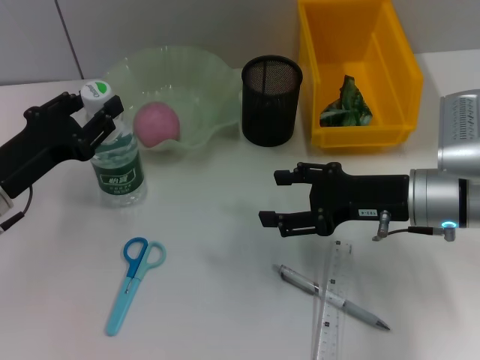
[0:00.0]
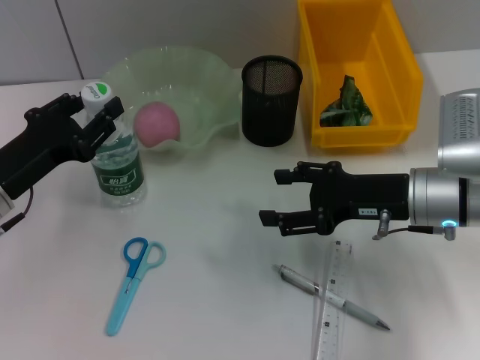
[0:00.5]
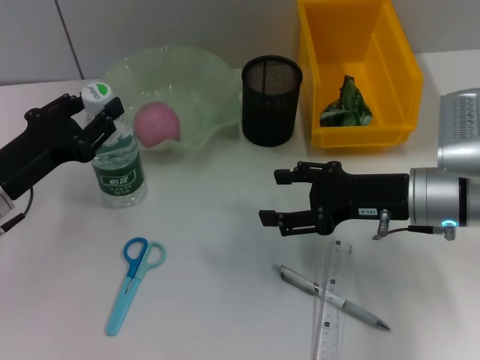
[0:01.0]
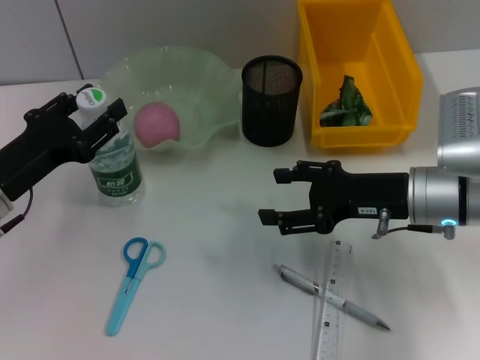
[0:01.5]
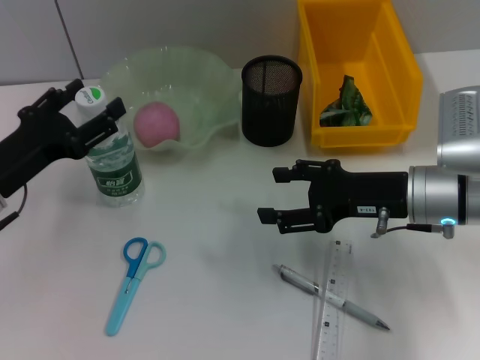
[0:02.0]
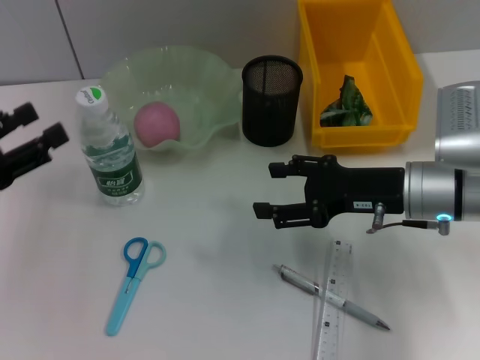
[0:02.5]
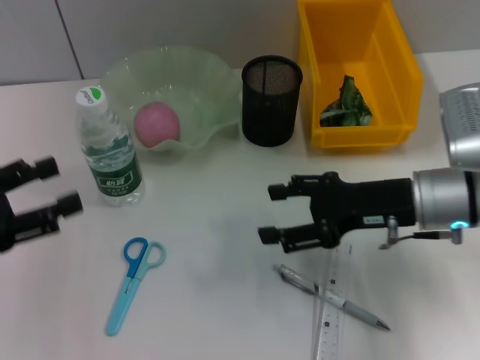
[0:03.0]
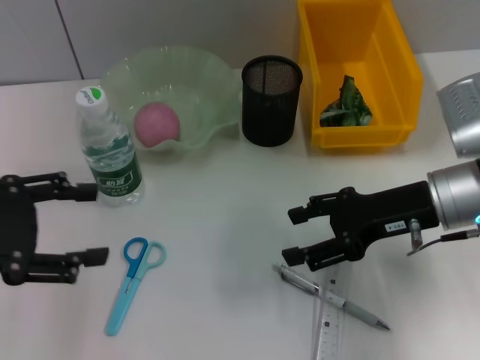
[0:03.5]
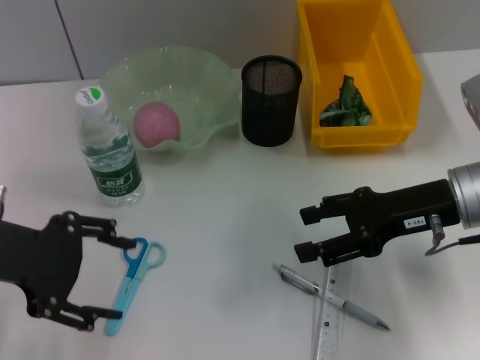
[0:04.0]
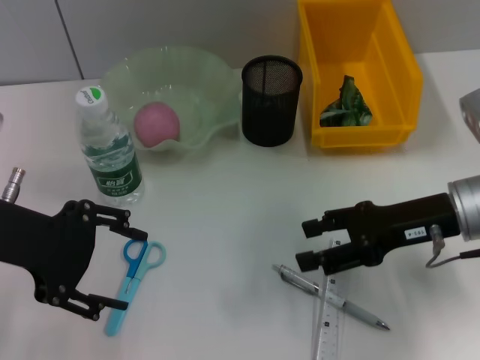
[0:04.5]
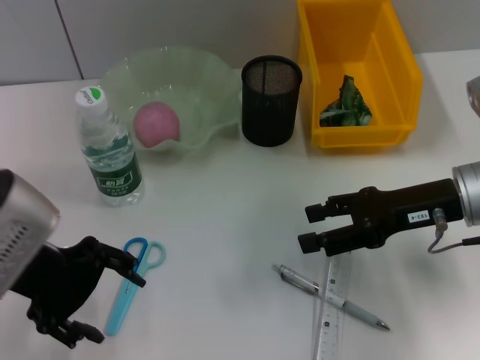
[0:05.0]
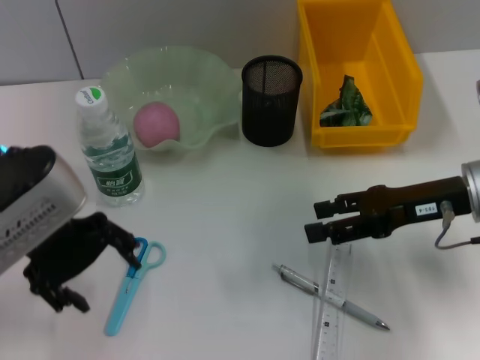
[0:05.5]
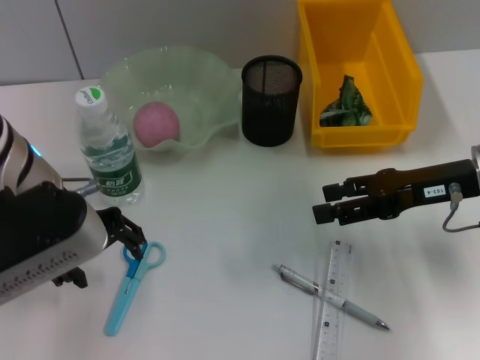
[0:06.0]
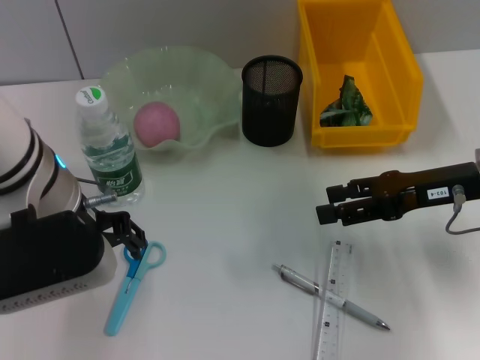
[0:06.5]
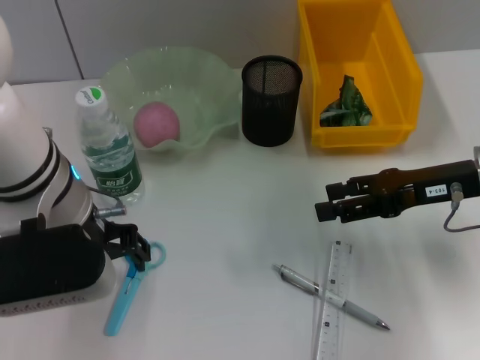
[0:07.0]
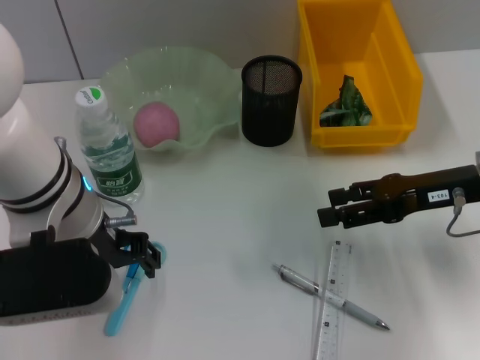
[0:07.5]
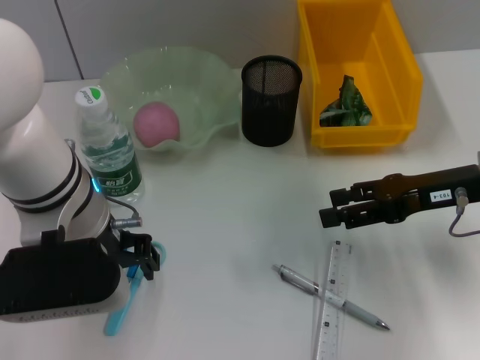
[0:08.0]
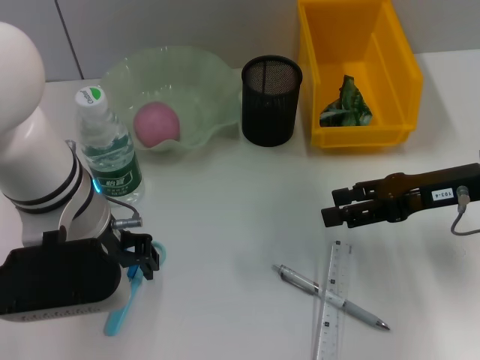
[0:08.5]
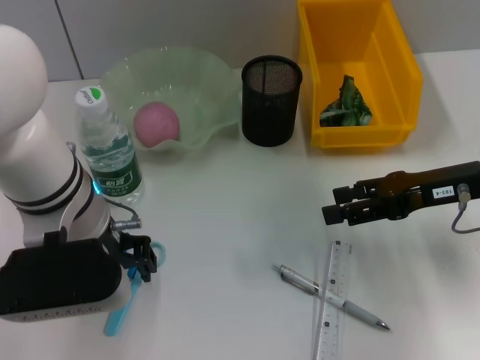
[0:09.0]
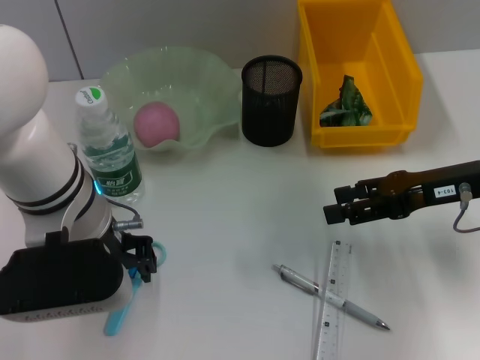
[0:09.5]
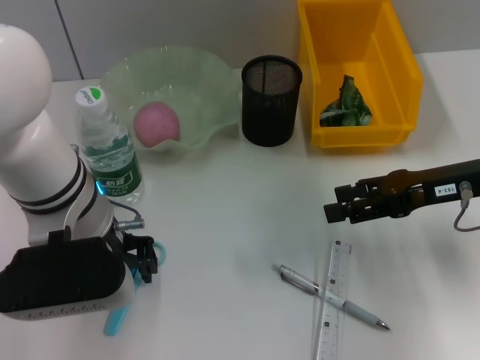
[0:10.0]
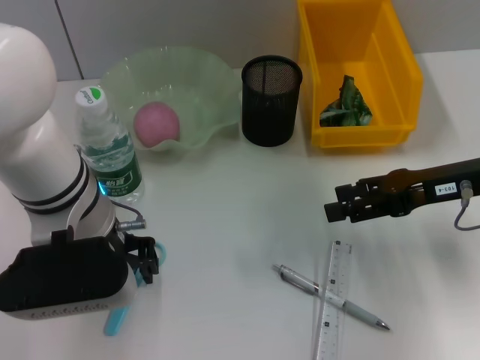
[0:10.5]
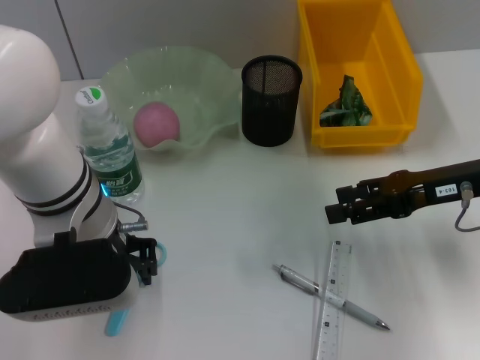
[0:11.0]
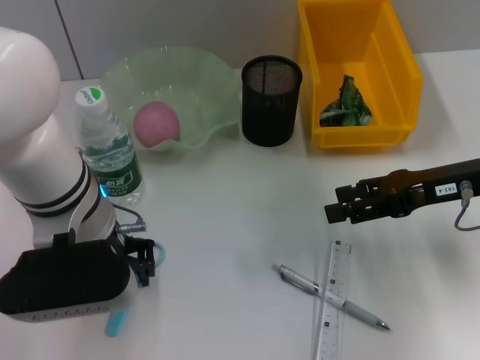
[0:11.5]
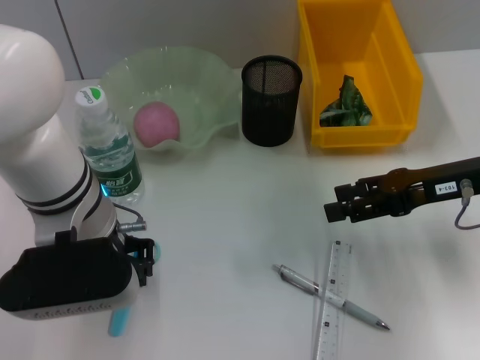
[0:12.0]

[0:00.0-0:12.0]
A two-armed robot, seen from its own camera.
0:00.0 to 0:02.0: Both grippers stay about where they are.
0:02.0 to 0:04.0: The left gripper shifts some 10 cm upward.
0:04.0 to 0:06.0: The left gripper travels to the right by some 10 cm.
0:06.0 to 0:08.0: The left gripper changes place by approximately 5 cm.
0:08.0 to 0:10.0: The grippers make only small movements.
0:10.0 to 0:12.0: Neither gripper changes place.

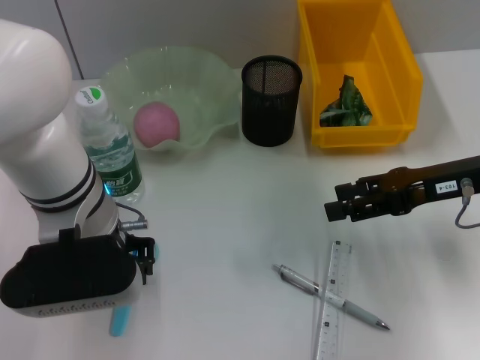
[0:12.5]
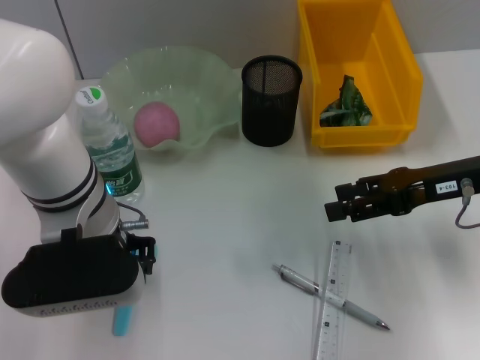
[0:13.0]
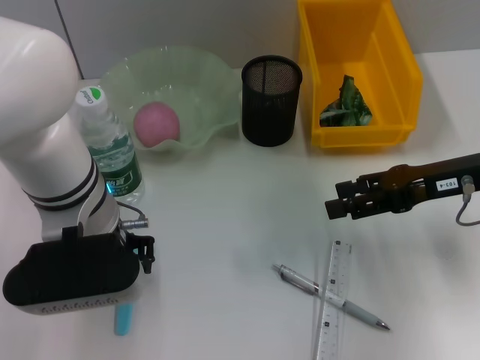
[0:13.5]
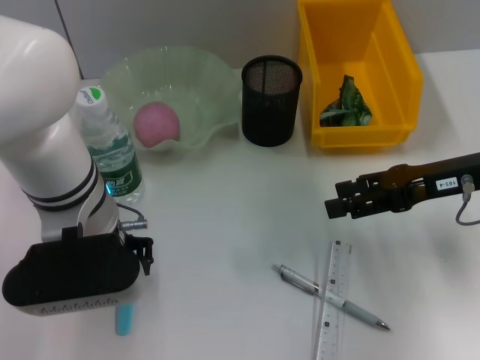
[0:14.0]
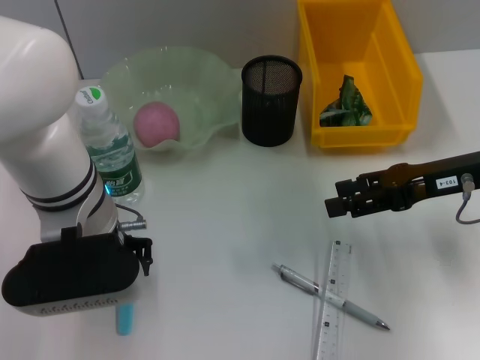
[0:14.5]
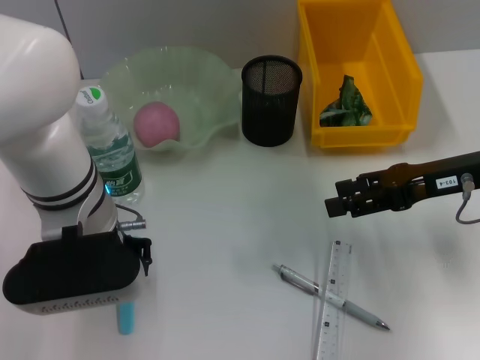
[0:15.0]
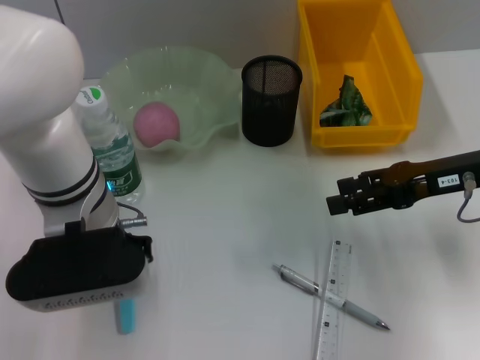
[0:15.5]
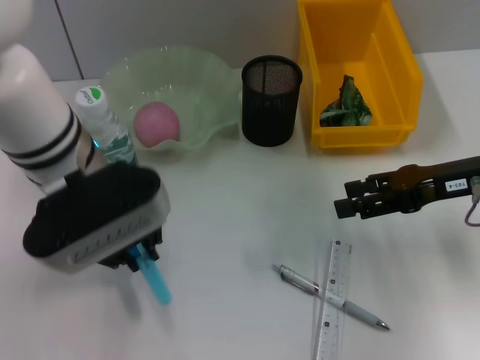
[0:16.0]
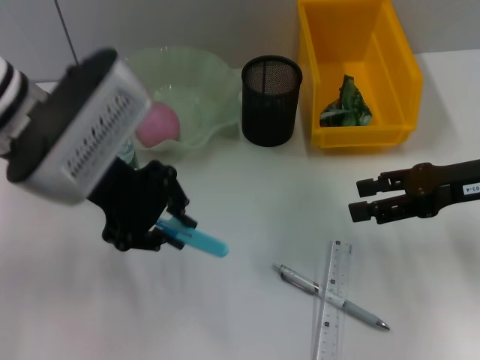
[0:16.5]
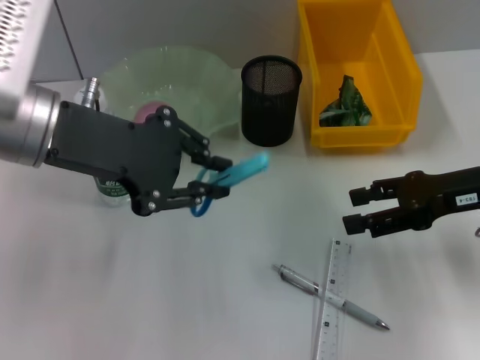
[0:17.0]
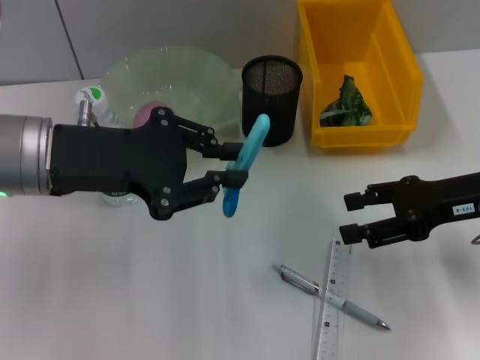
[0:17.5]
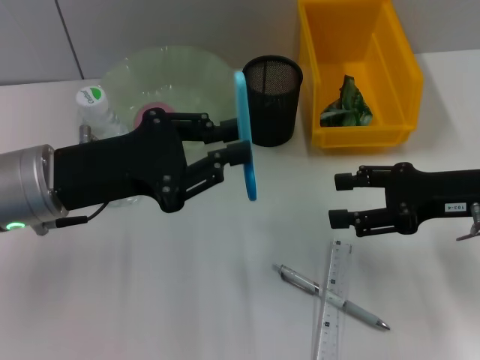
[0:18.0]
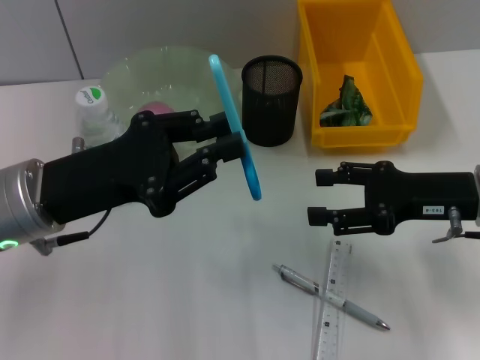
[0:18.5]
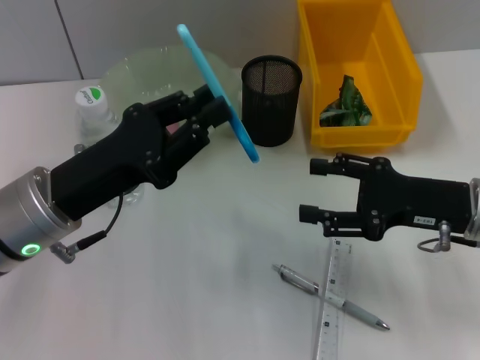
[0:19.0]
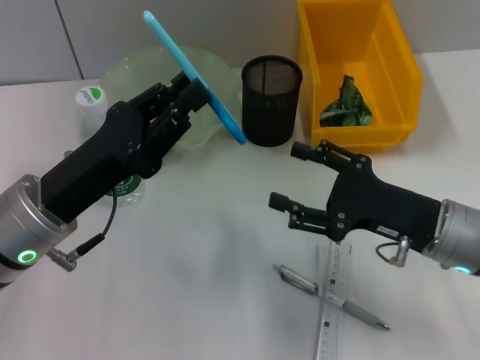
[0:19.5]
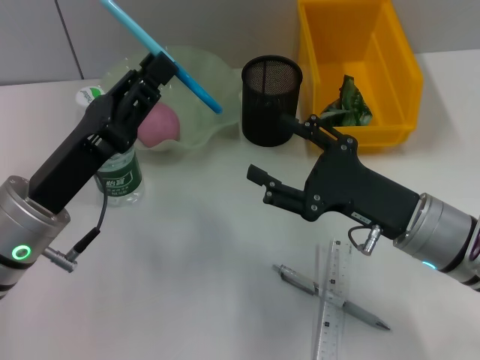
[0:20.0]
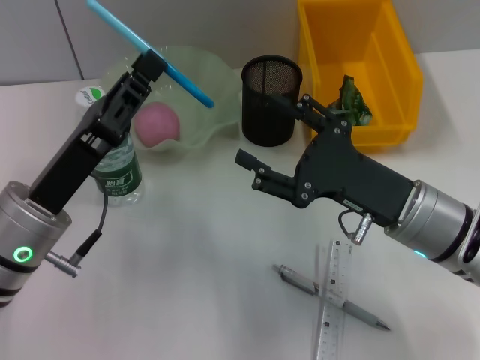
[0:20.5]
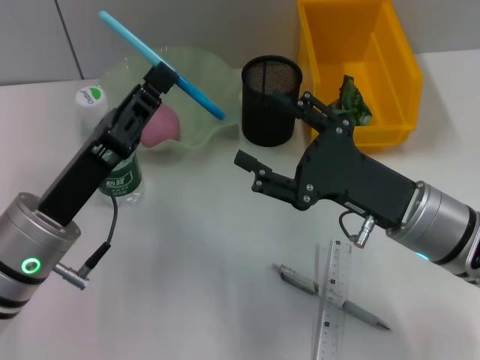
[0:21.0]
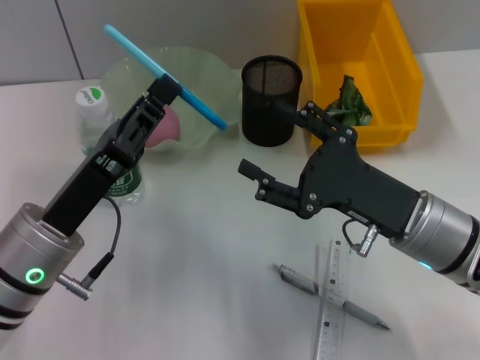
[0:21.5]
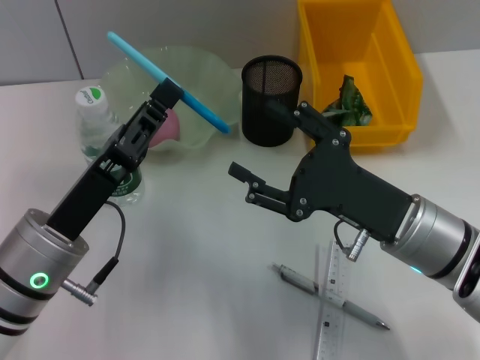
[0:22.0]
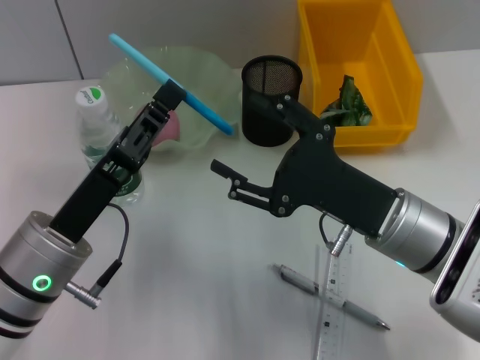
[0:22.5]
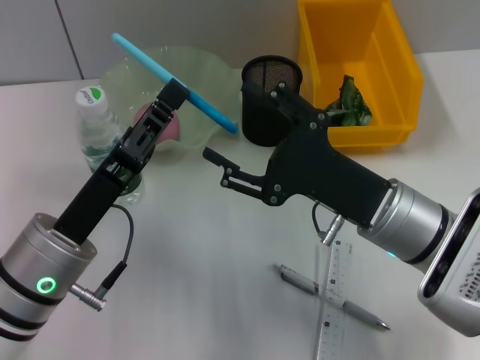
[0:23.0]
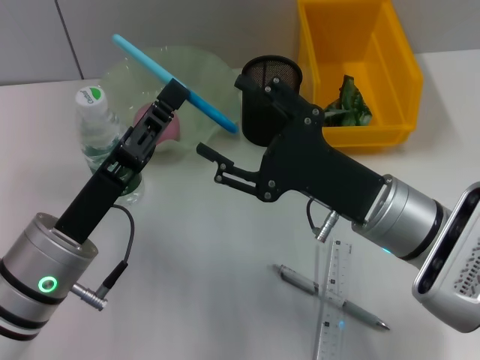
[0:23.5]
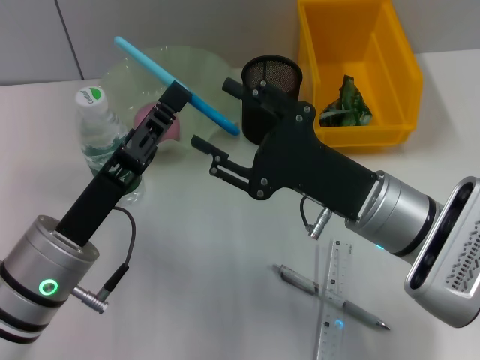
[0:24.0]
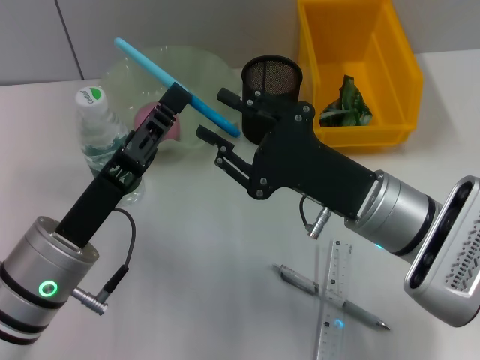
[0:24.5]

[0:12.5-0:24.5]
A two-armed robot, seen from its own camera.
Step, 0:12.5 to 0:15.0: Grab the blue scissors with the left hand.
0:12.5 to 0:14.5: Both grippers stay put.
0:14.5 to 0:16.5: The left gripper goes some 5 cm upward.
0:16.5 to 0:18.5: The left gripper shifts roughly 10 cm downward and backward.
0:18.5 to 0:20.5: The right gripper travels to the left by about 10 cm.
0:22.5 to 0:24.5: The right gripper closes.

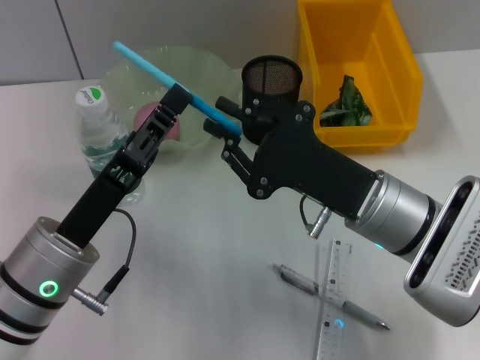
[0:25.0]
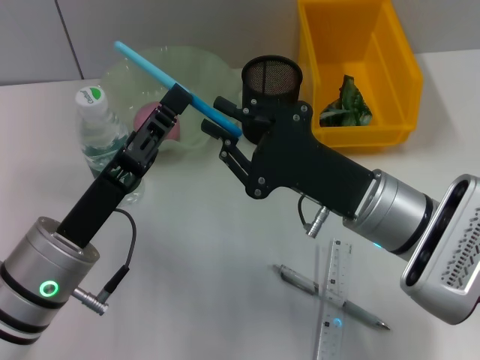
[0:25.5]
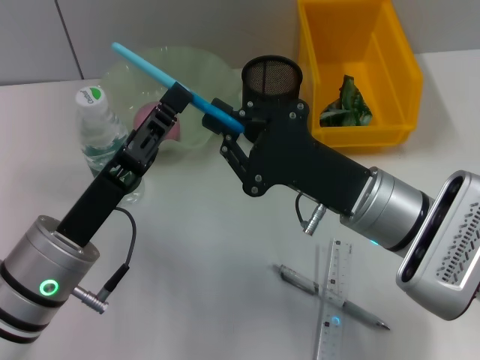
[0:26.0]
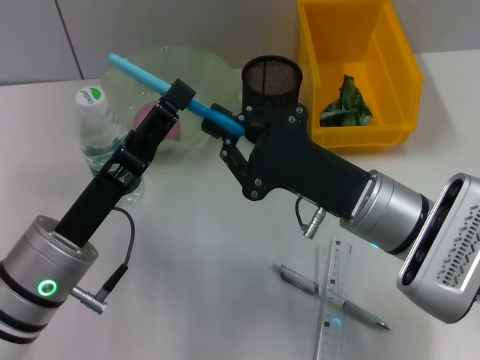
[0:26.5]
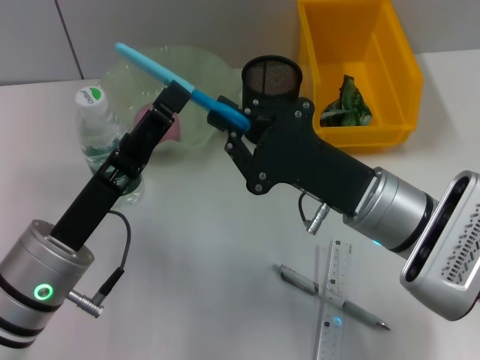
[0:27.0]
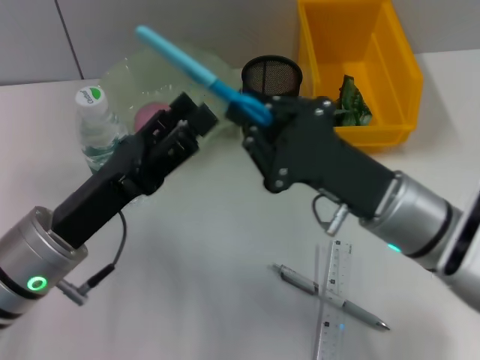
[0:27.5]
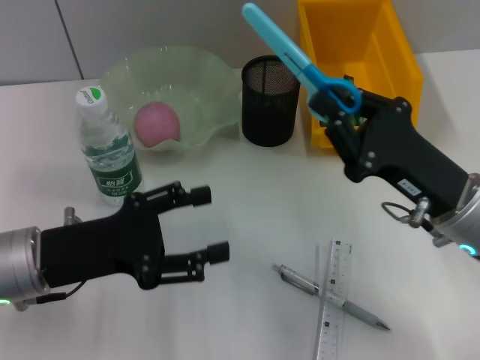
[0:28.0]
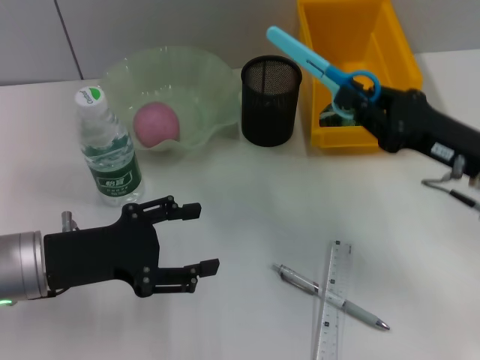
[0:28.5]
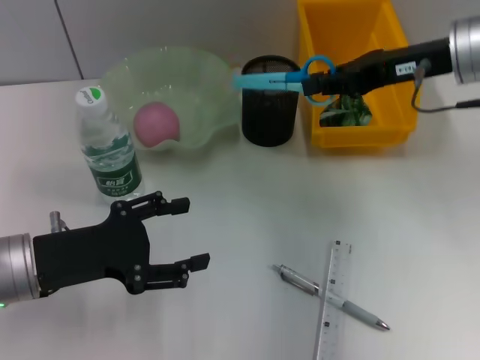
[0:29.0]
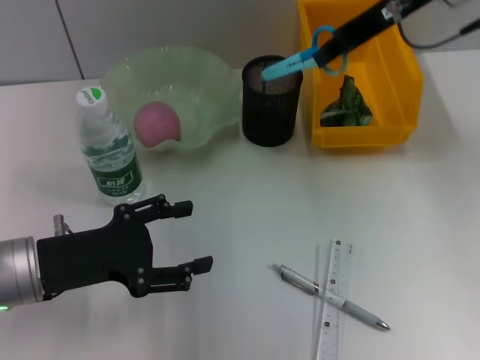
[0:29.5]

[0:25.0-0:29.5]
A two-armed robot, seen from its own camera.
Step, 0:25.0 to 0:27.0: Pass the blue scissors from the left hand to the right hand.
0:25.0 to 0:27.0: The left gripper opens its fingers.
0:27.0 to 0:29.5: The left gripper shifts roughly 5 cm to the left. Meanwhile the right gripper goes about 25 cm upward and forward.
